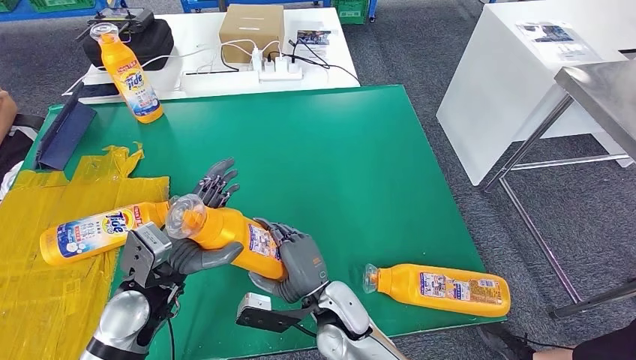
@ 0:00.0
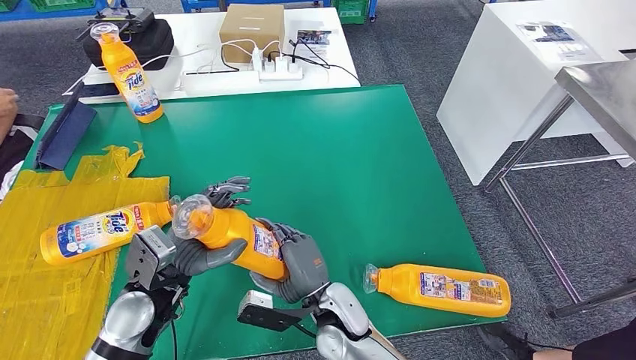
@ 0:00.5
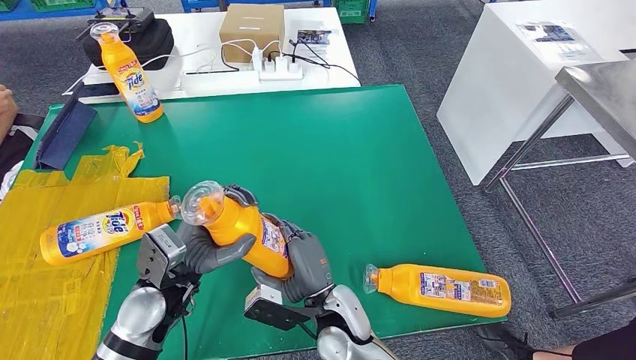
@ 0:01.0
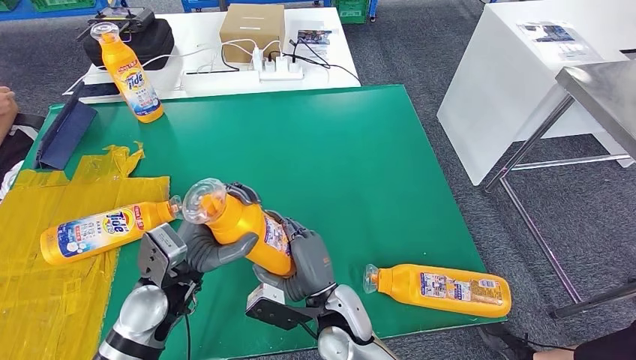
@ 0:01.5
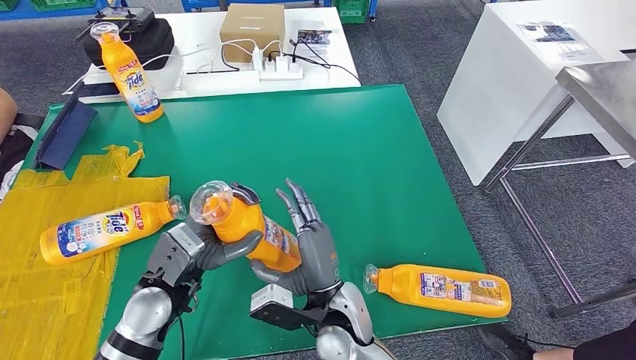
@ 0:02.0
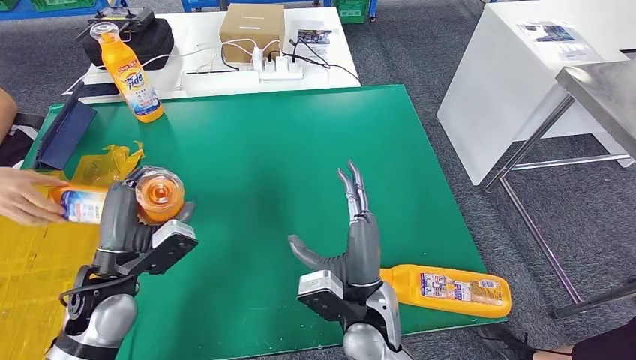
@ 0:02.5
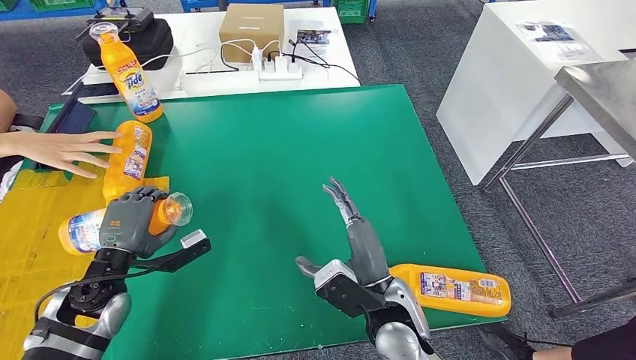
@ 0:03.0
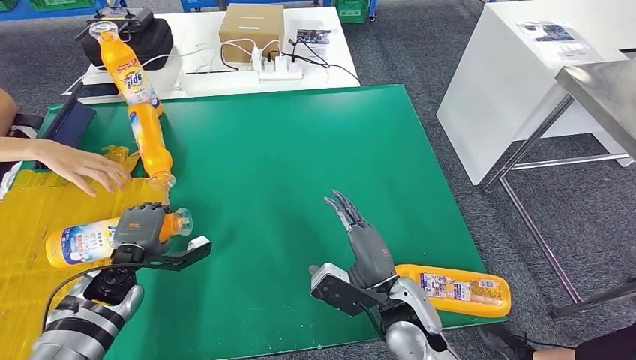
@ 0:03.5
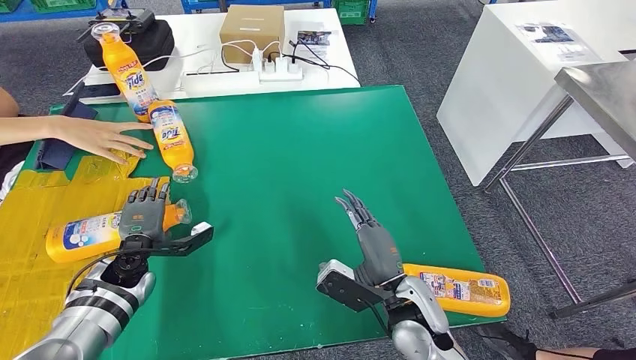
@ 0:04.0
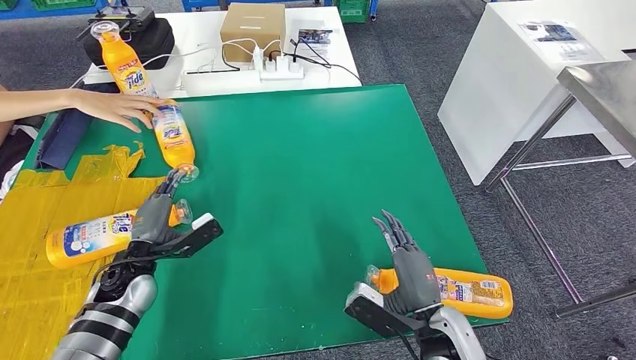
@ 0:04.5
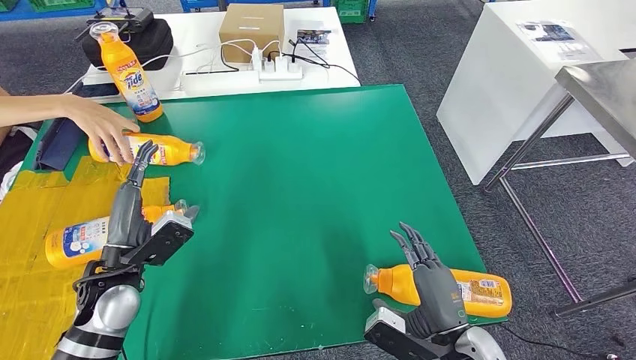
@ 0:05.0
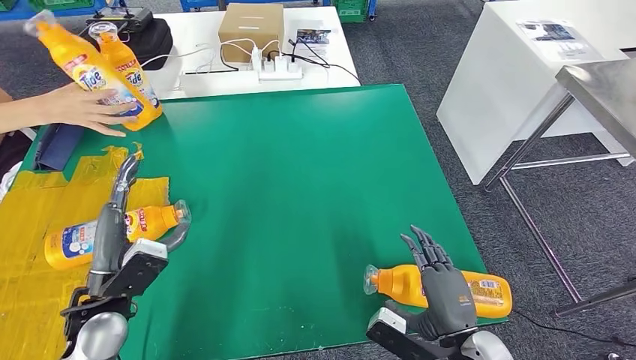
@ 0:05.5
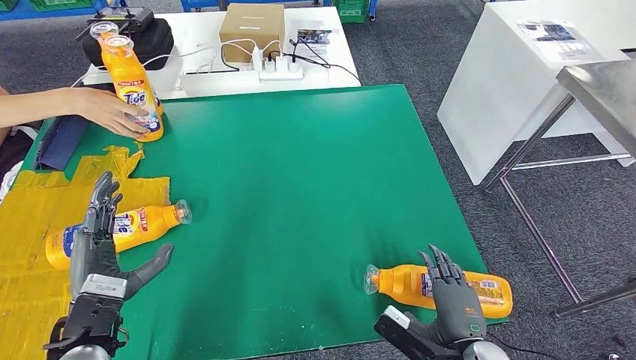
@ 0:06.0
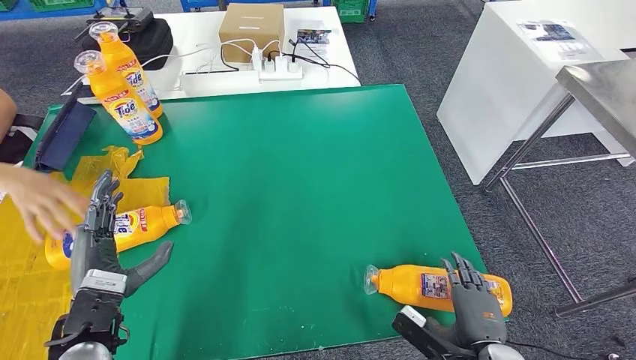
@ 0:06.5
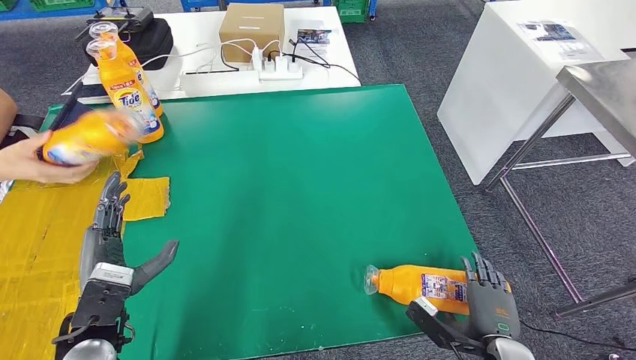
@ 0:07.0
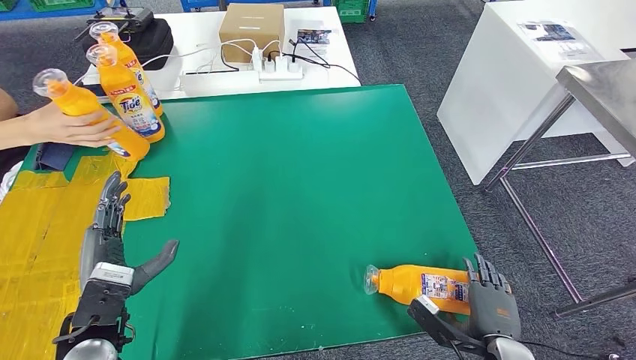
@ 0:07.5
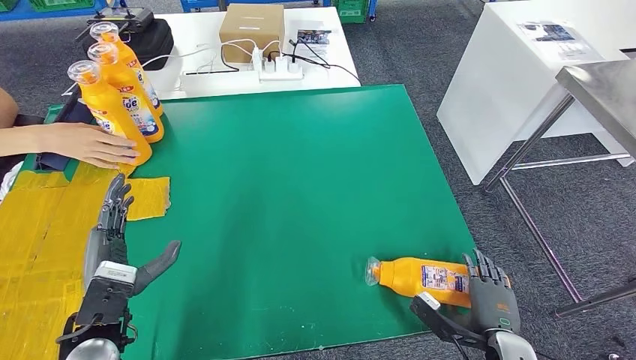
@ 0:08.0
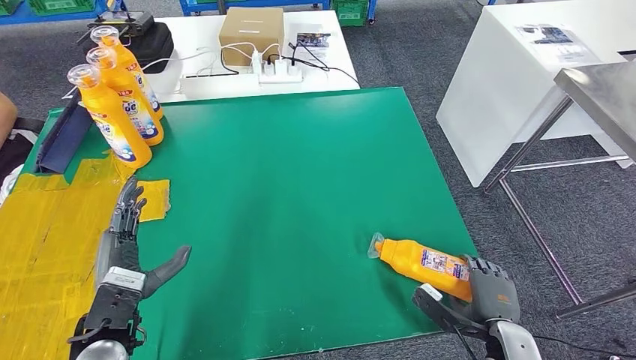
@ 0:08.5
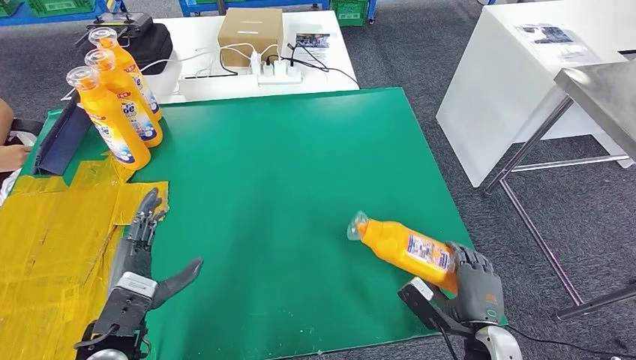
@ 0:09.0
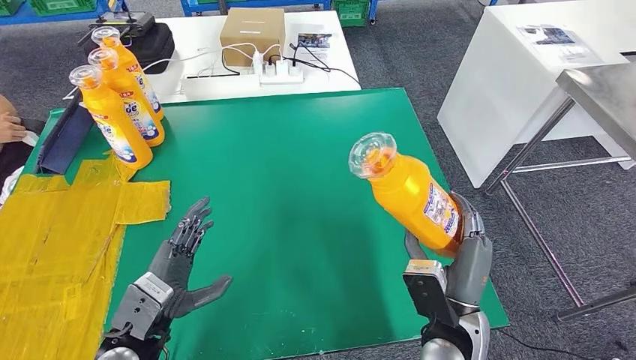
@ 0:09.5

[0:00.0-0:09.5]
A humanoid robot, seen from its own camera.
Step, 0:00.0 to 0:03.5: Flip the bottle to face forward.
0:05.5 to 0:07.5: The right hand moves to the right and downward, some 10 cm.

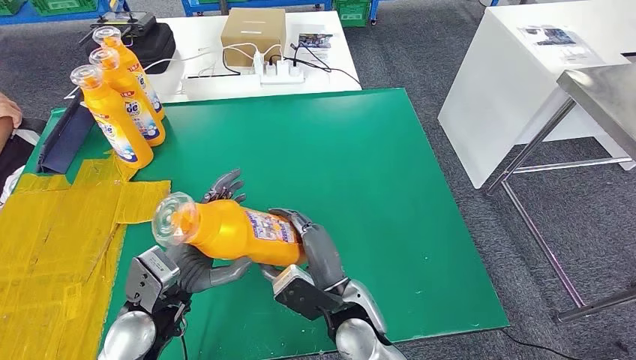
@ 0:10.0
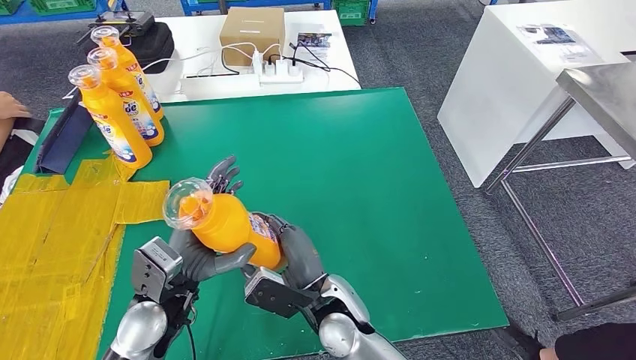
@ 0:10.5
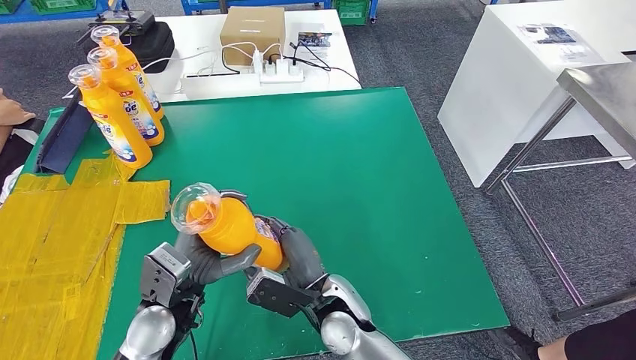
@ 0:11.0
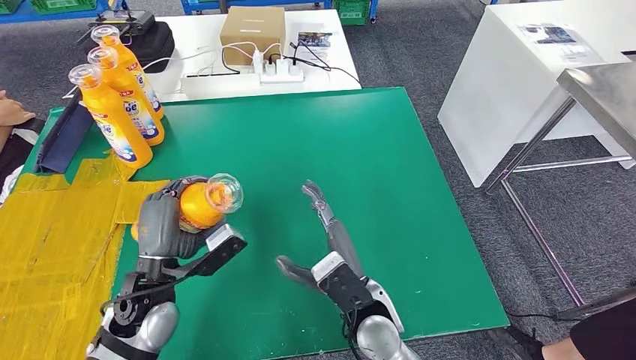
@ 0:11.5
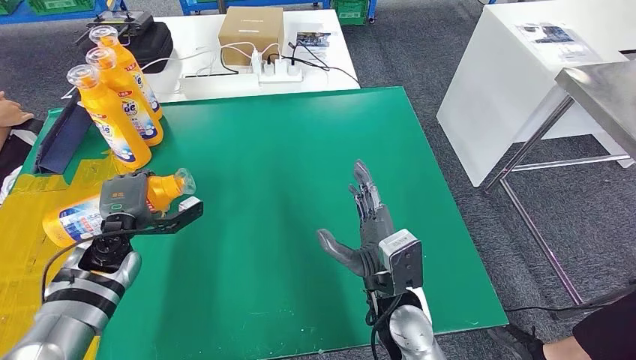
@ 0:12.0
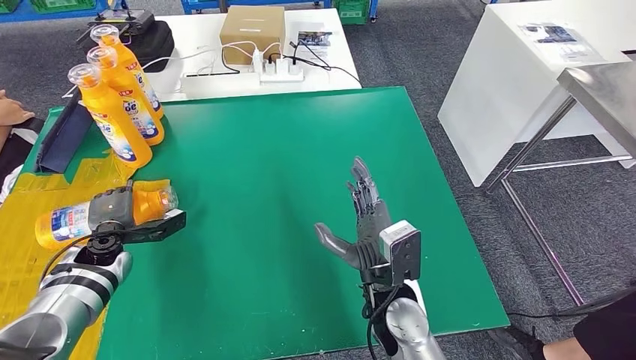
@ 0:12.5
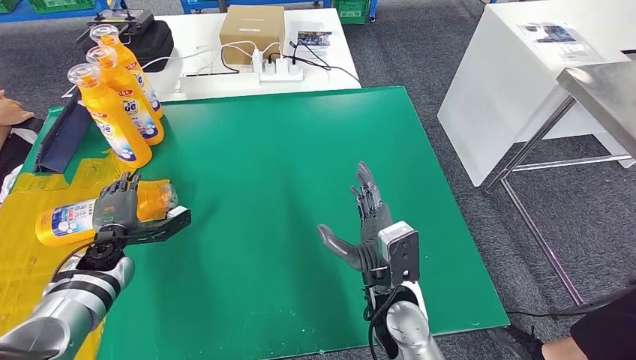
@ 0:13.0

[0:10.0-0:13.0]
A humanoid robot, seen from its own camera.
Step, 0:11.0 to 0:13.0: Flip the bottle to face forward.
0:11.5 to 0:13.0: The left hand moves to the left, forward and downward, approximately 15 cm.
